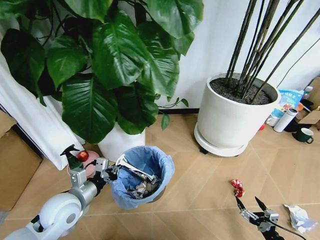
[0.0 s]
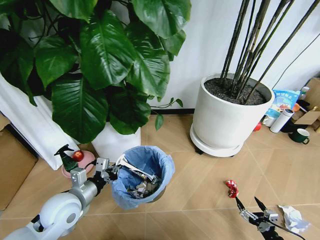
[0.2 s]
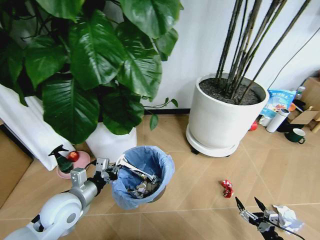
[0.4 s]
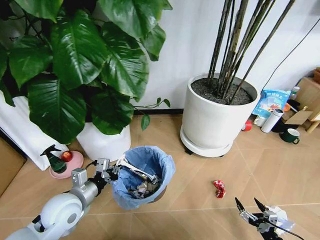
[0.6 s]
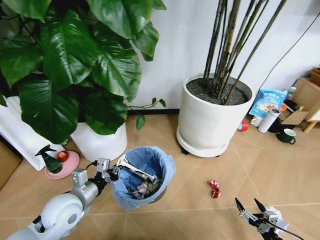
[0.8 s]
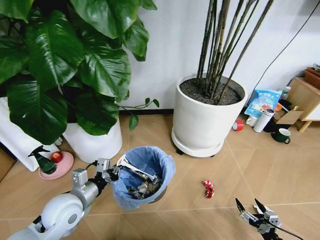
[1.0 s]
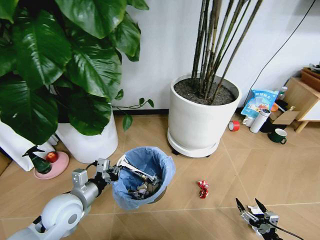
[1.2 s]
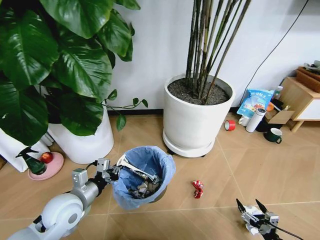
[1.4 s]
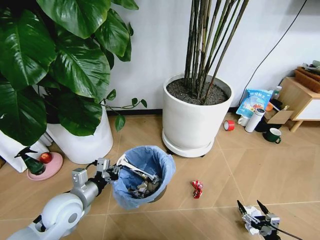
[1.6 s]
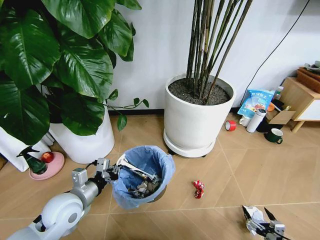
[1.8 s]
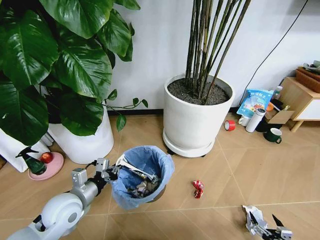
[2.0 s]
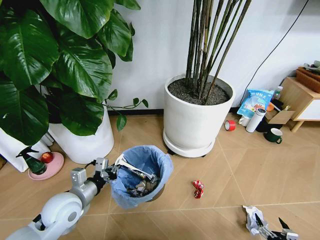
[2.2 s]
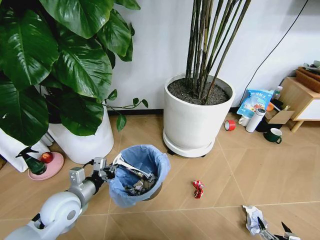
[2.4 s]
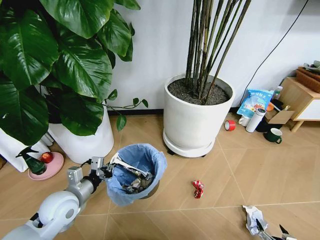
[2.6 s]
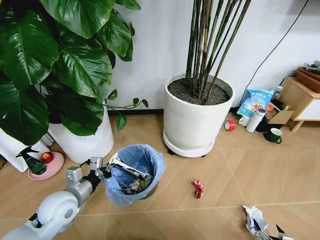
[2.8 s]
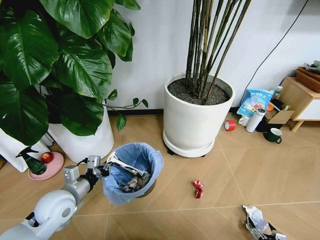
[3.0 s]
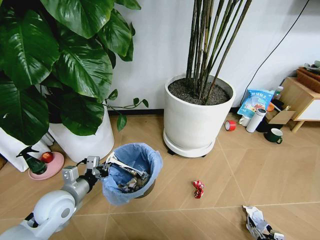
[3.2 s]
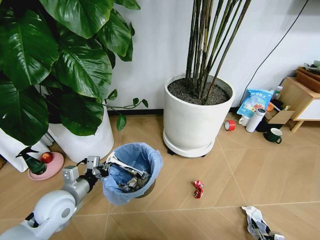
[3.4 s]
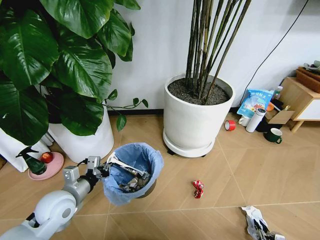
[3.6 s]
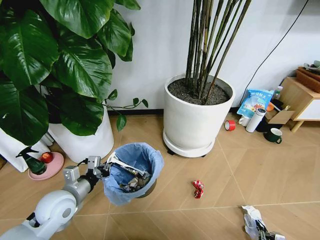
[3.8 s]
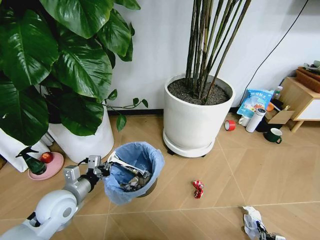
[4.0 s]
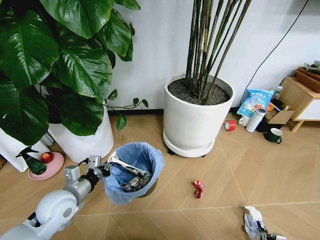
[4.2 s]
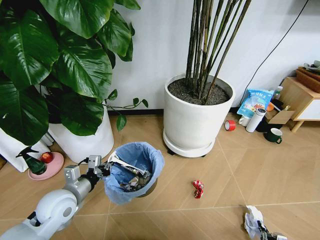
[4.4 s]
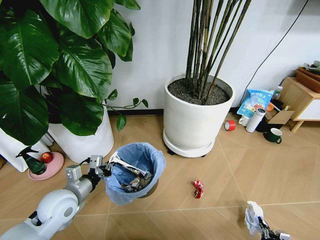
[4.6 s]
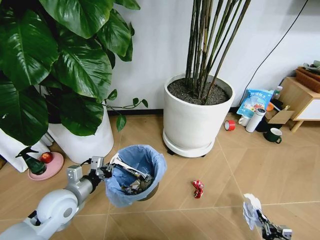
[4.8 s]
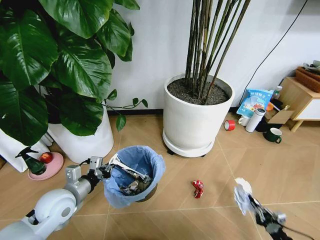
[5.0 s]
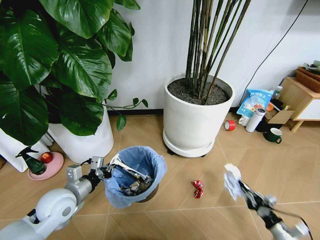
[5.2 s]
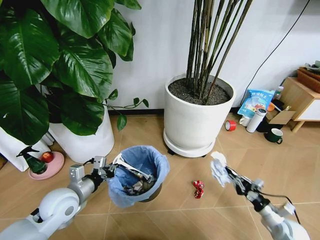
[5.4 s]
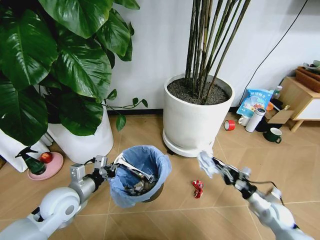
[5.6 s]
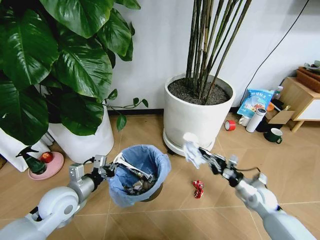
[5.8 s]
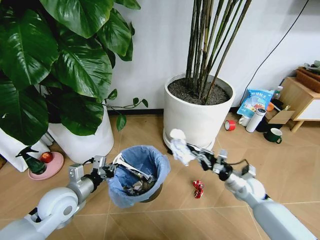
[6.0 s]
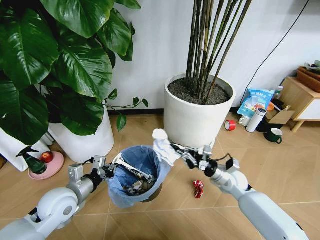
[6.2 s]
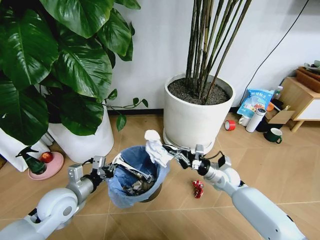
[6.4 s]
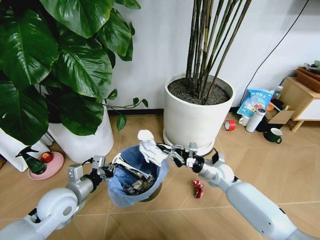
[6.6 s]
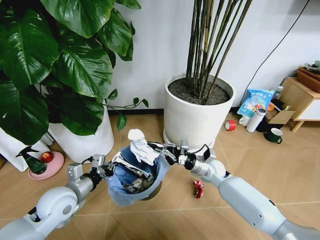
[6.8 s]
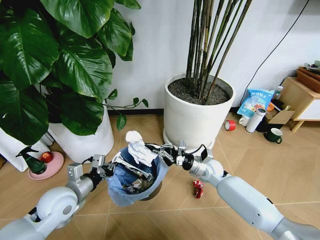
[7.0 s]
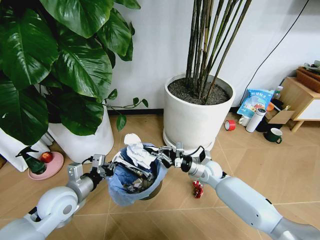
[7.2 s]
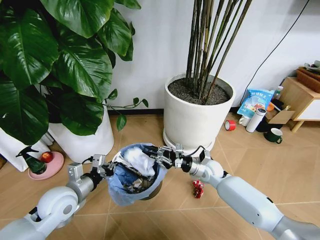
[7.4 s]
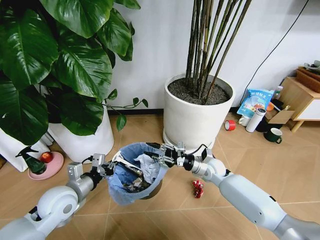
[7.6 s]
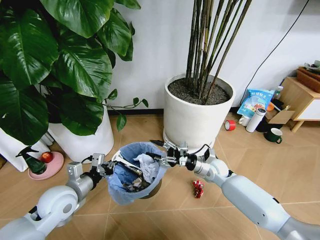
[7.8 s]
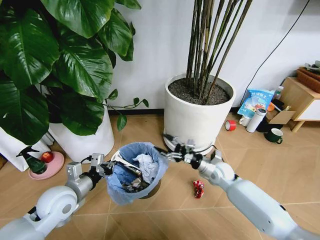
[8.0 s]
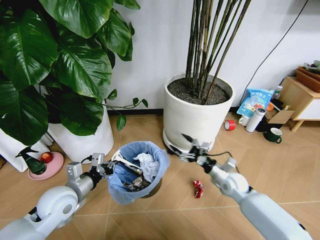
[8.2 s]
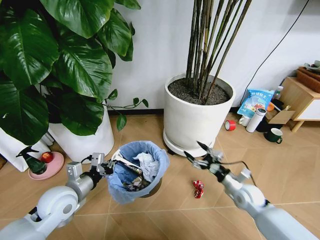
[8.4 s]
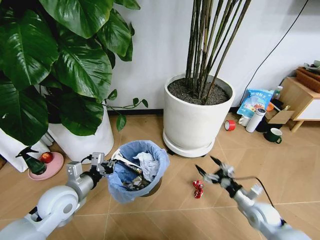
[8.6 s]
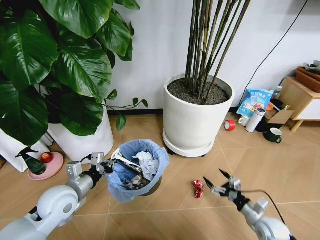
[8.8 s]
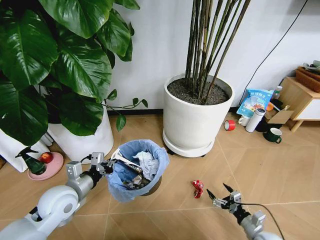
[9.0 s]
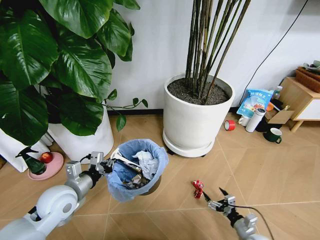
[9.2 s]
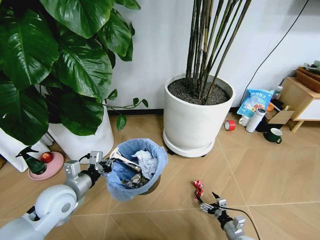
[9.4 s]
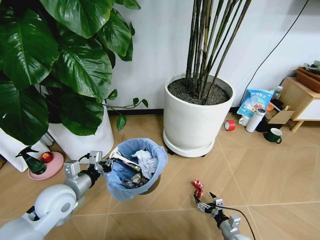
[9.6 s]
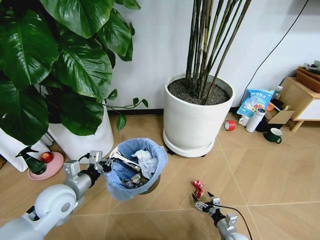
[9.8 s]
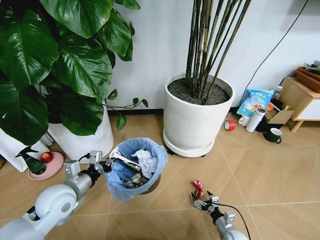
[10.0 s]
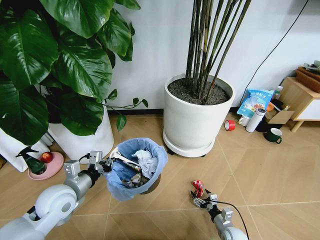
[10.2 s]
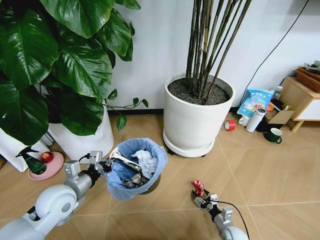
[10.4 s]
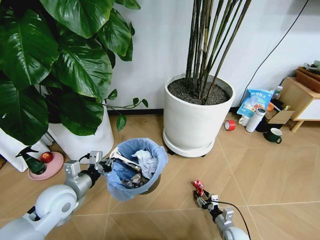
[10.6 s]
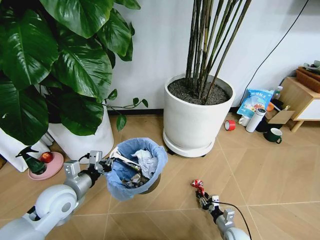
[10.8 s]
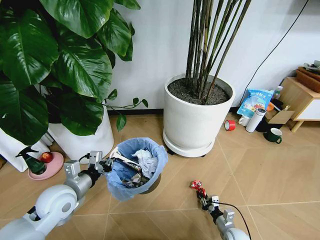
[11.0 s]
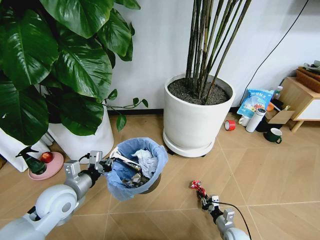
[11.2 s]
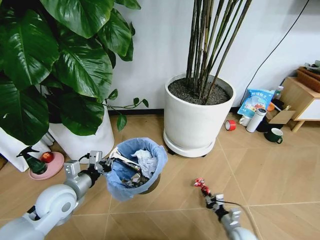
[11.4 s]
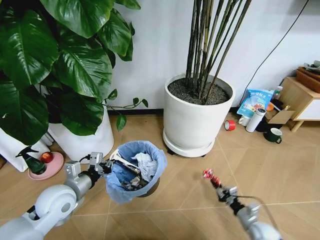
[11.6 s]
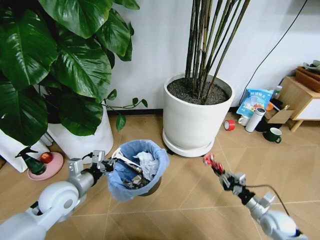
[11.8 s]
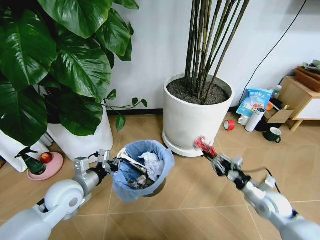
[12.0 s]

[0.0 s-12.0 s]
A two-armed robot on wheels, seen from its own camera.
Task of the whole recording: Pick up the trash bin and place the garbage on the floor into it.
1.6 to 3.0 s: The right gripper is displaced downward by roughly 5 cm.
3.0 to 4.4 s: The right gripper closes up.
4.4 to 6.0 s: The right gripper travels forward, upward and to the left by about 40 cm.
6.0 to 7.6 s: The right gripper goes about 15 cm to the left and forward, and opens up.
7.6 to 9.0 s: The right gripper heads backward, to the right and downward, covering about 30 cm, and opens up.
9.0 to 10.4 s: The right gripper heads downward and to the left, covering some 15 cm.
10.4 to 12.0 s: The right gripper moves upward, roughly 25 cm, and closes up.

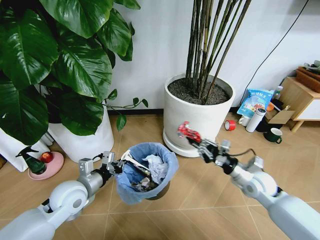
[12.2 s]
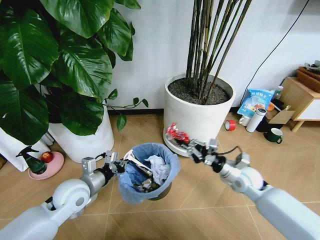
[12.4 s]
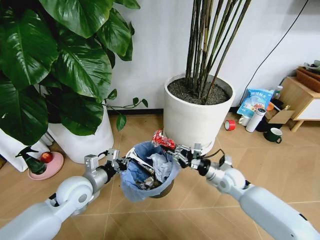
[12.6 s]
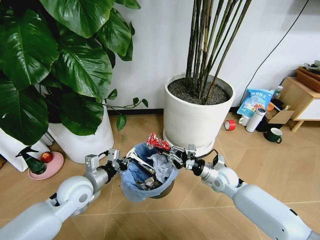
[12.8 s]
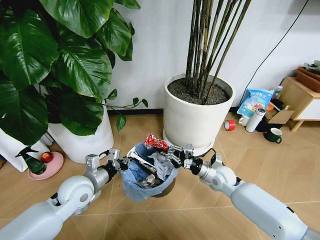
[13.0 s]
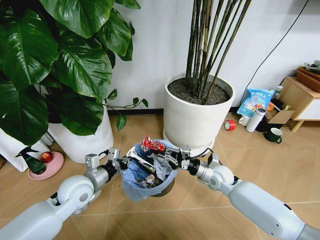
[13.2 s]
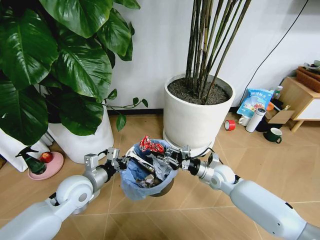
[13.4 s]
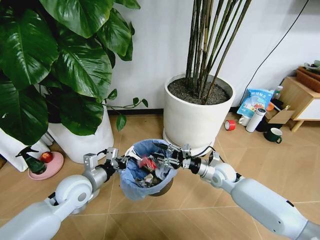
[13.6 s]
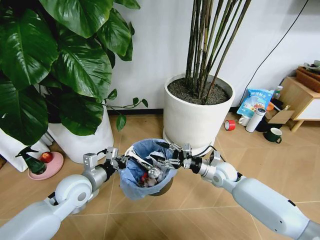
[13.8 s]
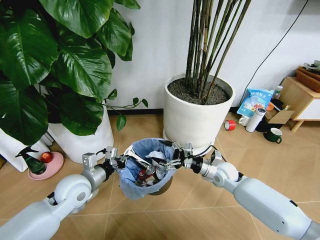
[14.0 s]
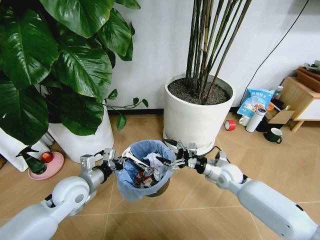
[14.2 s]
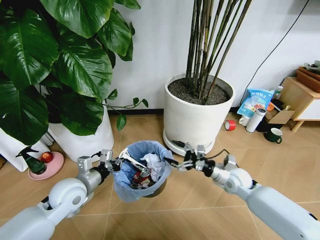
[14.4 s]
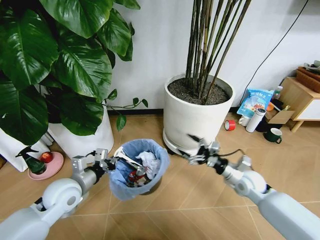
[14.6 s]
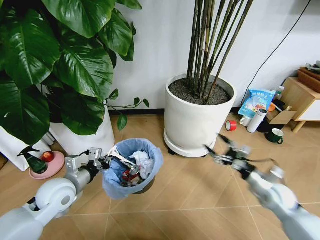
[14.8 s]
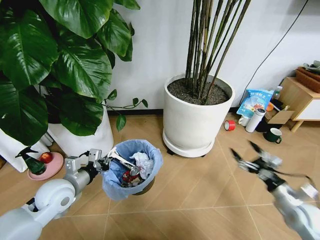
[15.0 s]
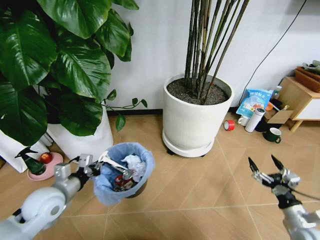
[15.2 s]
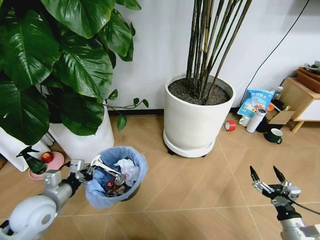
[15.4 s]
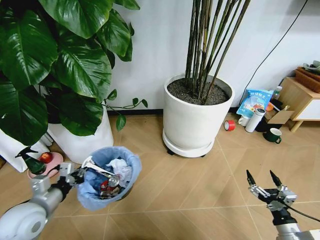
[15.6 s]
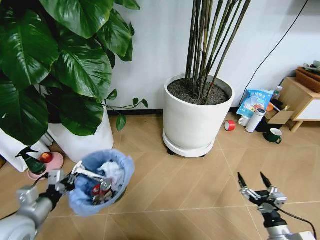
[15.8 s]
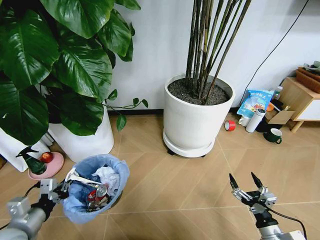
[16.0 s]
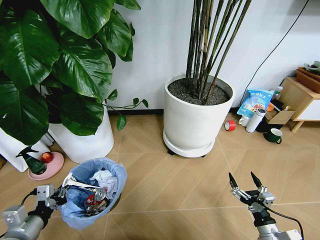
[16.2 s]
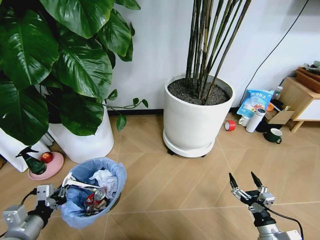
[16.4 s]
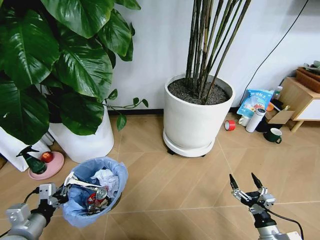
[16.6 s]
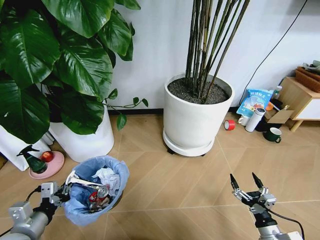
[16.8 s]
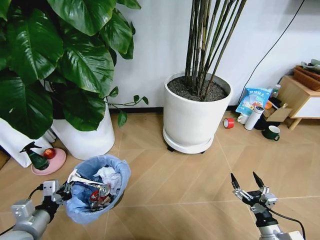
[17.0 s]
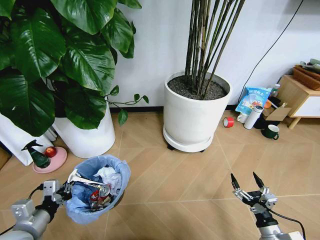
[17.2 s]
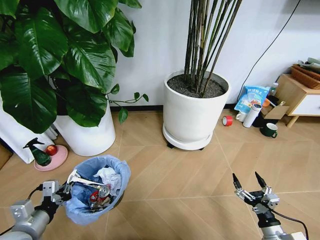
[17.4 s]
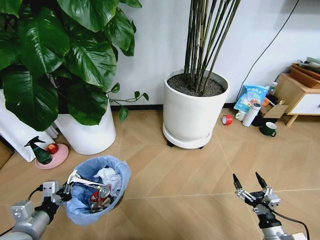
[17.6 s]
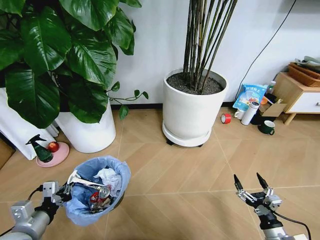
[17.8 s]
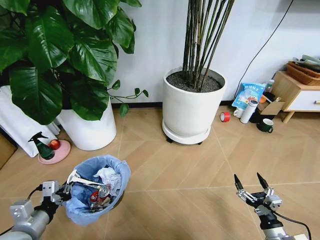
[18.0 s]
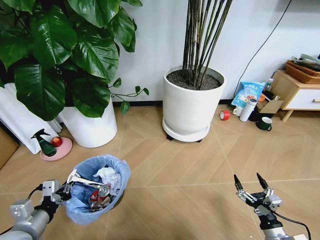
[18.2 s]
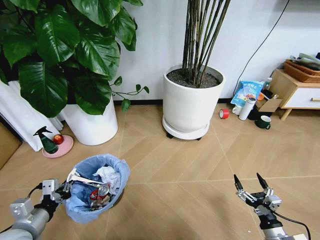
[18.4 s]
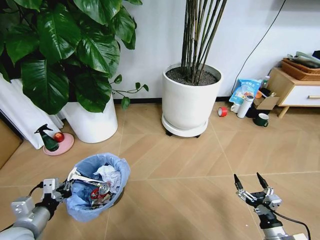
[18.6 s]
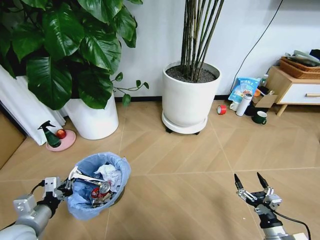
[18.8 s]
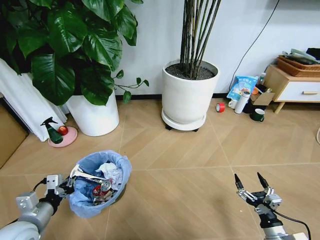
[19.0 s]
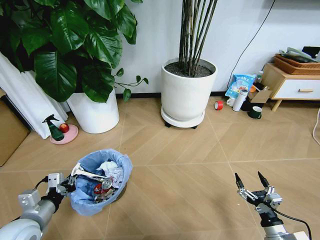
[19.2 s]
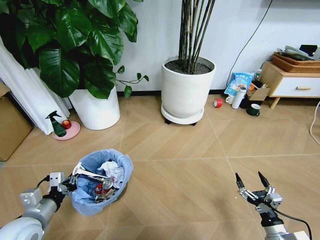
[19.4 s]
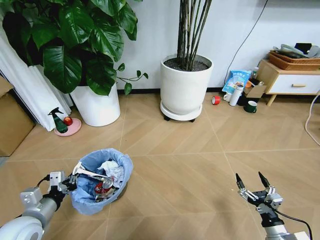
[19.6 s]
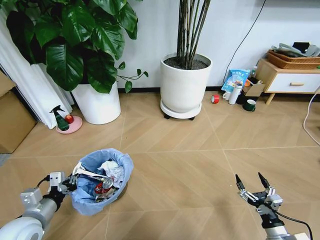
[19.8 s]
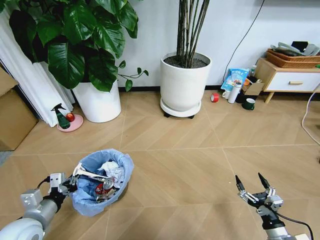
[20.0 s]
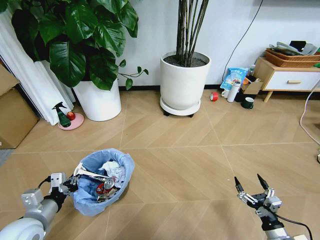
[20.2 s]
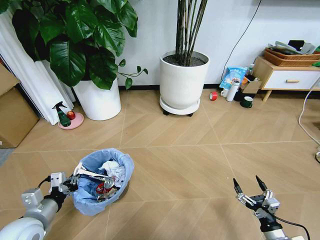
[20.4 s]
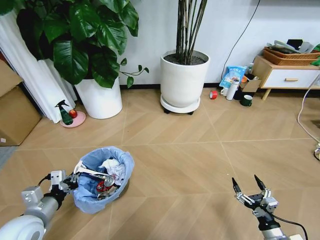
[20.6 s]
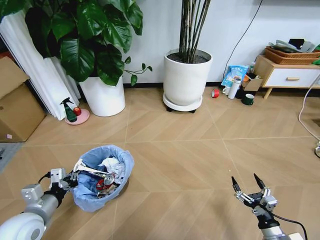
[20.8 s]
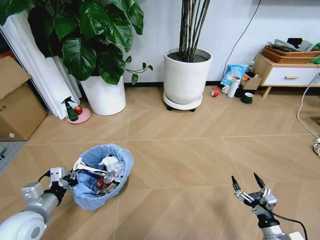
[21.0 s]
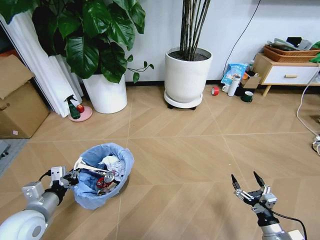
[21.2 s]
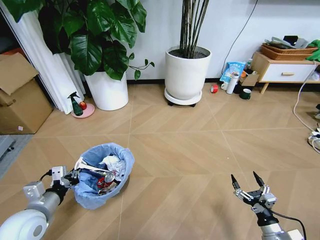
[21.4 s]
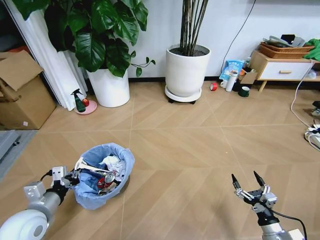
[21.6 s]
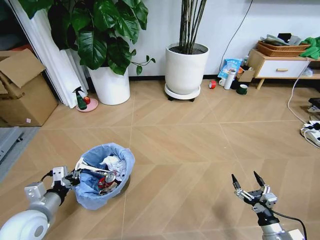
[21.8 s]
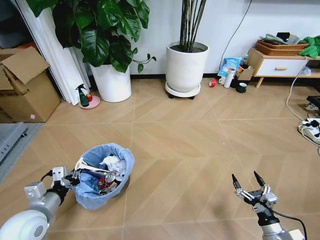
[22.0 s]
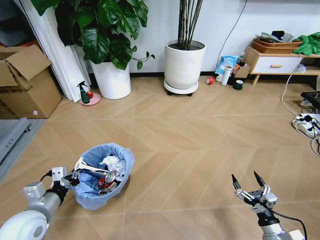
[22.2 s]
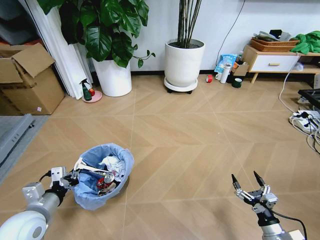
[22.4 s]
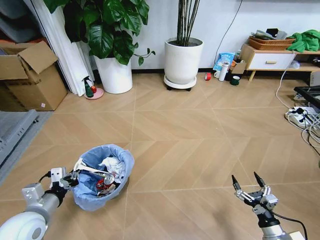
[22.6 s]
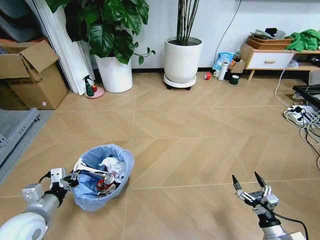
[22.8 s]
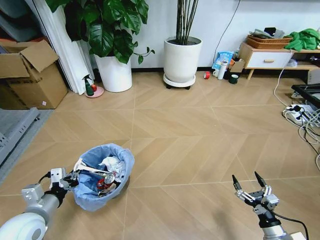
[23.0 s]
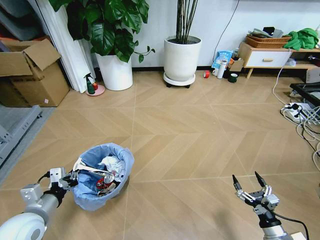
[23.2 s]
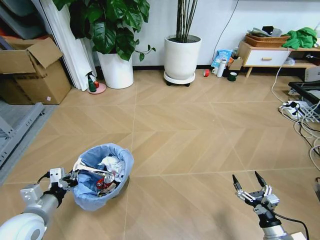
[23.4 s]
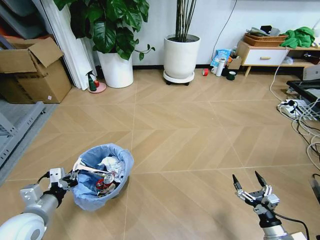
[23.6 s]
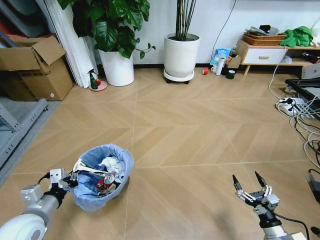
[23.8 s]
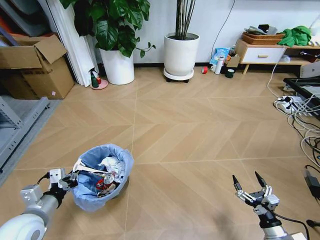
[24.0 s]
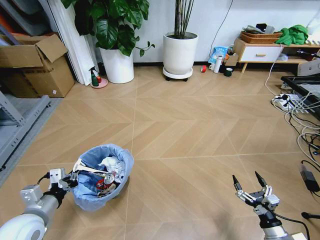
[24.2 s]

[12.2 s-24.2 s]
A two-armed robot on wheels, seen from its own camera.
Task of the whole recording: Pick up the trash bin and place the garbage on the floor into it.
12.2 to 13.8 s: The right gripper moves to the left and forward, some 10 cm, and opens its fingers.
13.8 to 15.2 s: The left gripper heads to the left, covering some 5 cm; the right gripper is displaced backward and to the right by approximately 30 cm.
15.2 to 16.6 s: The left gripper goes approximately 15 cm backward and to the left. The right gripper goes roughly 10 cm to the left and downward.
